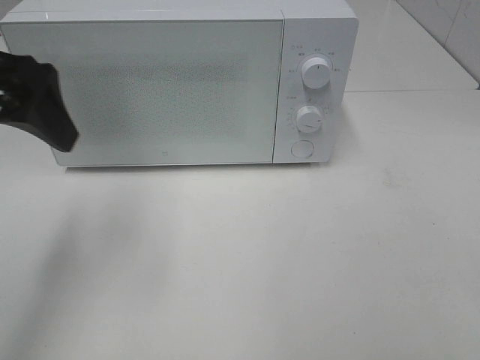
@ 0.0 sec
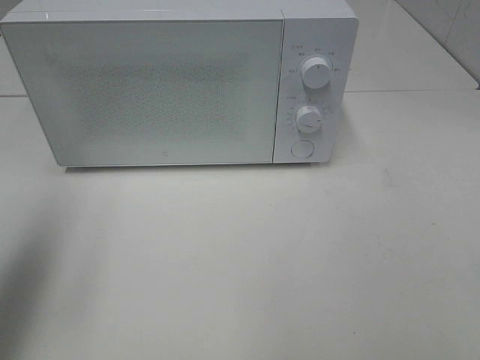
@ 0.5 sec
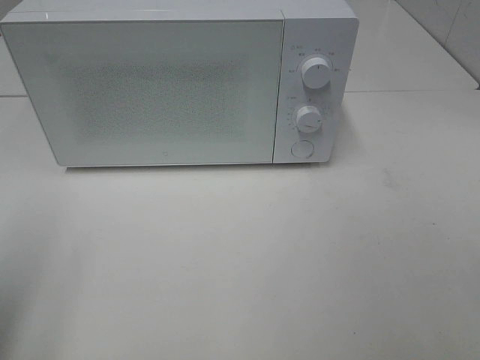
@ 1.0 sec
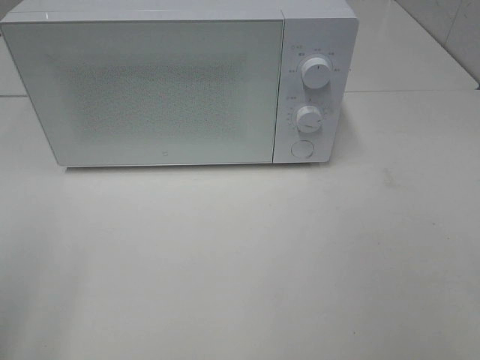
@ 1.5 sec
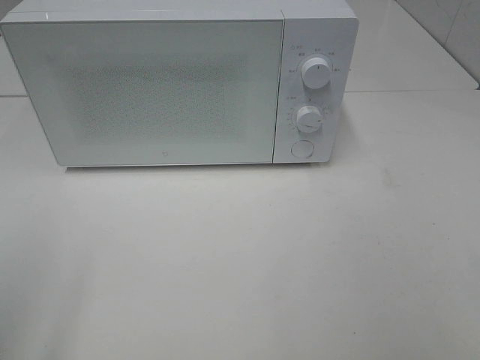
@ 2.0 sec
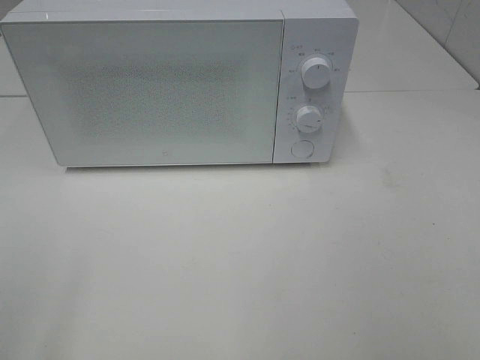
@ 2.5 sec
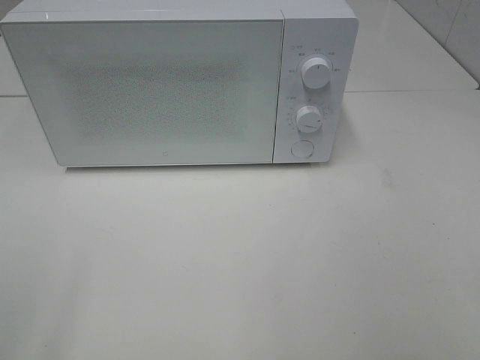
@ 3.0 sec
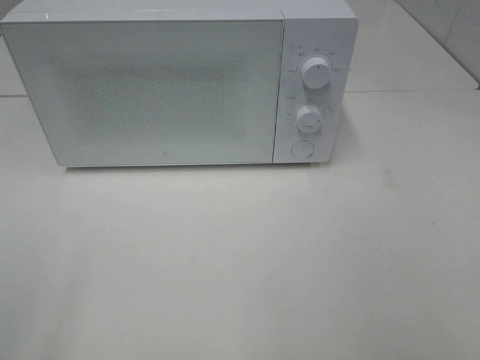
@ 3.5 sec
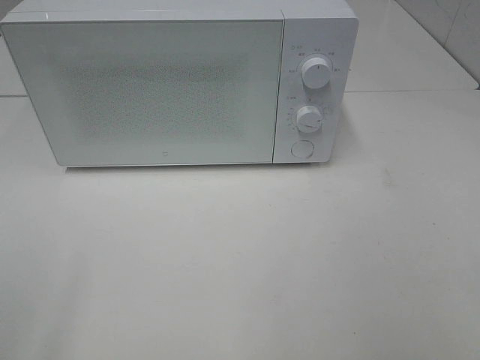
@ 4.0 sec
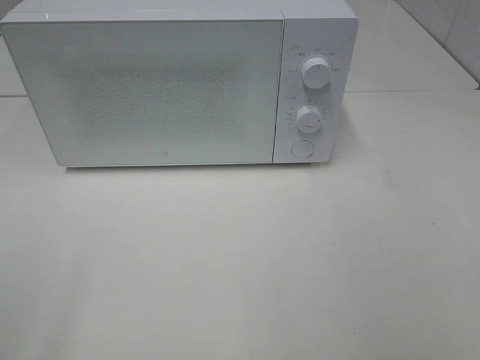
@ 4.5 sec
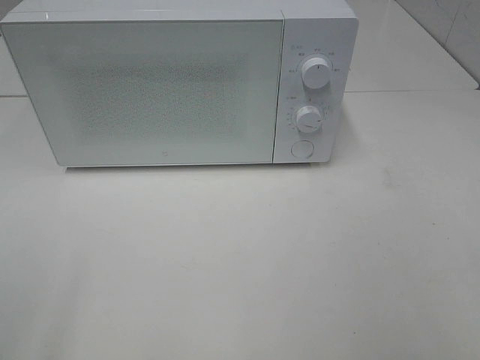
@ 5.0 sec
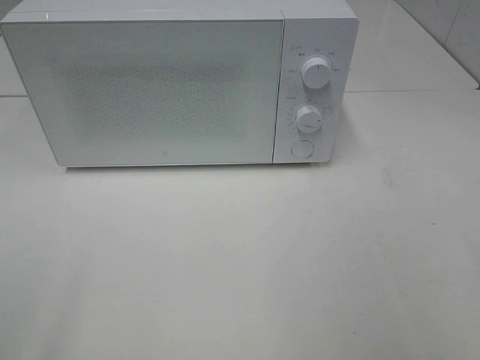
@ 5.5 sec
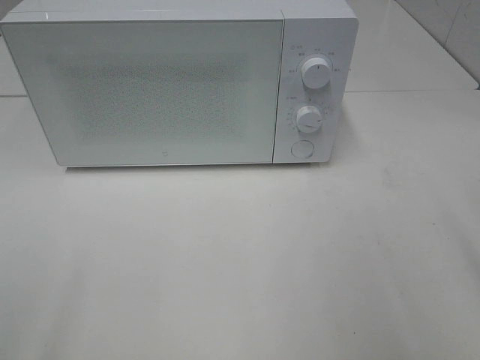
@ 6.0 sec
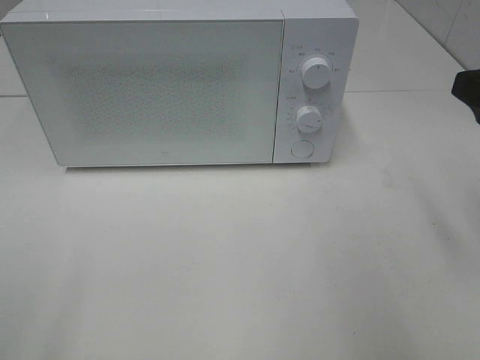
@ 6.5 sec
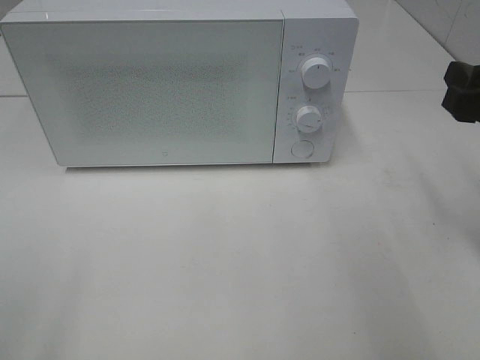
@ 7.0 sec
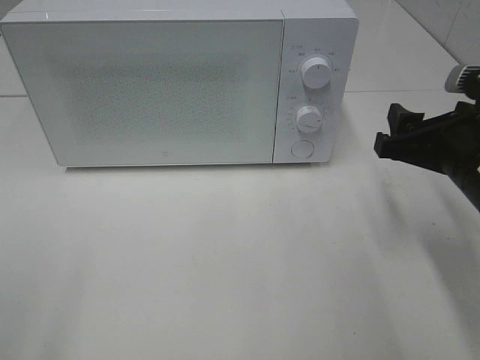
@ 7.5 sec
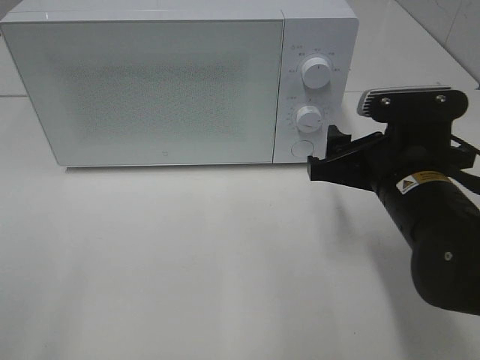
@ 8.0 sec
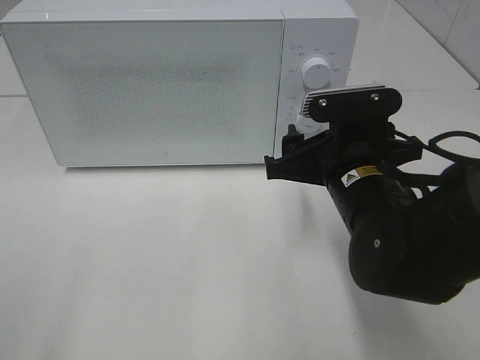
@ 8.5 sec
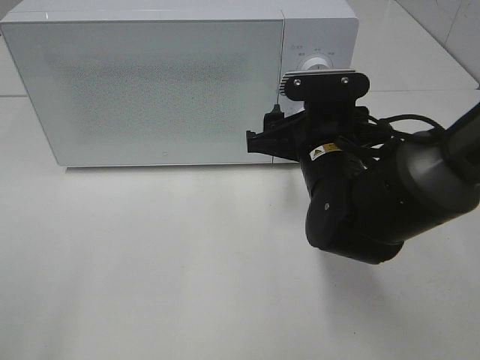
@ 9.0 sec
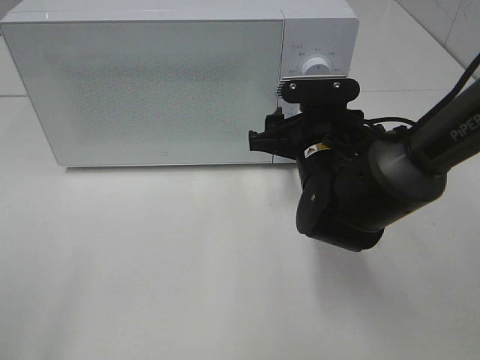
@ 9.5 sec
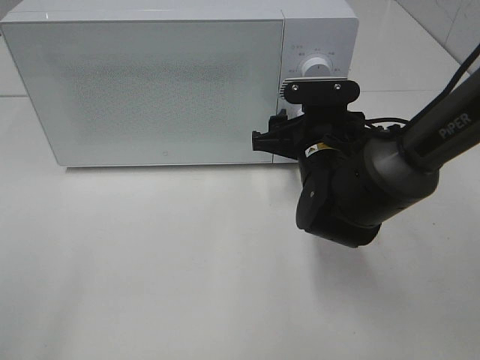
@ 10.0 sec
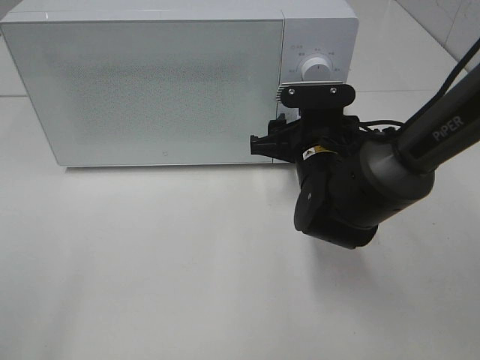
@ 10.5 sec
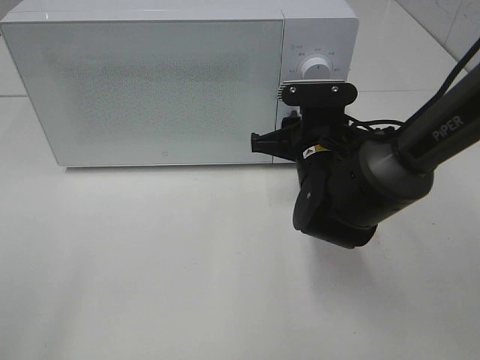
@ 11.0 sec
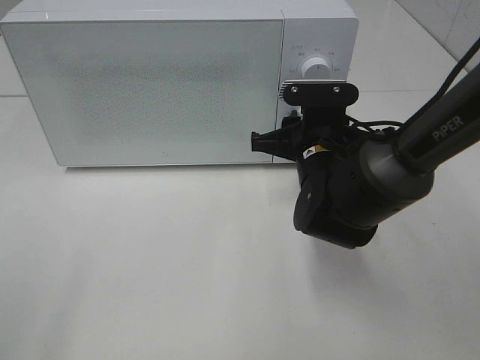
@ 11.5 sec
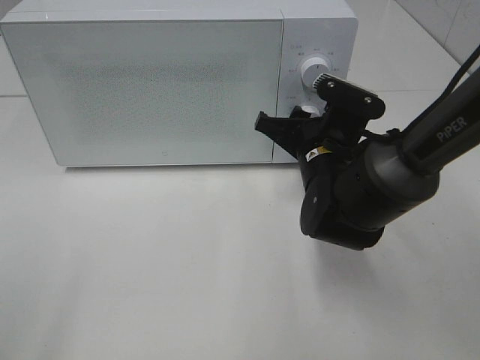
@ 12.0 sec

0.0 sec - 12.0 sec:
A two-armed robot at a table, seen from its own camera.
Task of the whole recording: Heat the burger.
0.0 sec - 2.0 sec: The left gripper travels backward and to the left by approximately 20 cm.
6.0 sec - 8.0 sec: The right gripper goes approximately 20 cm downward, to the left and forward.
8.0 sec - 10.0 sec: The right gripper is displaced forward and to the left by some 10 cm.
10.0 sec - 12.0 sec: The right gripper closes.

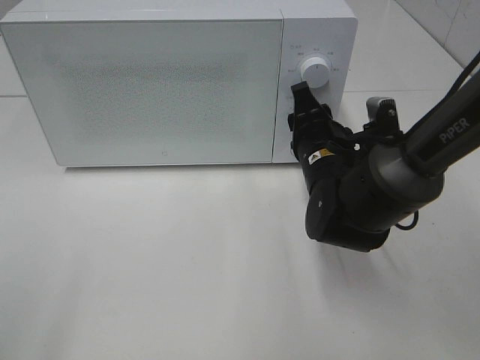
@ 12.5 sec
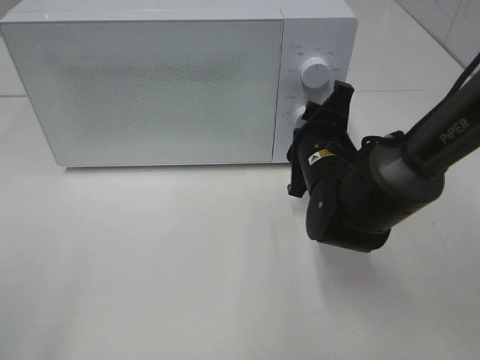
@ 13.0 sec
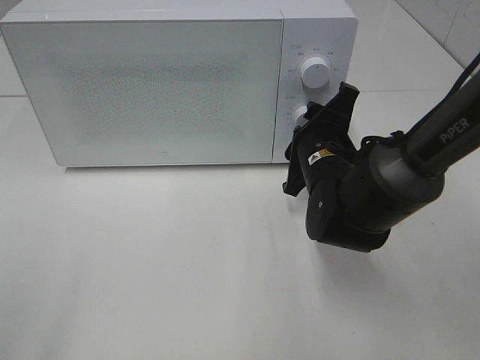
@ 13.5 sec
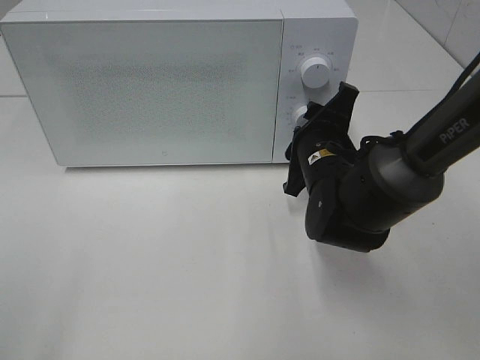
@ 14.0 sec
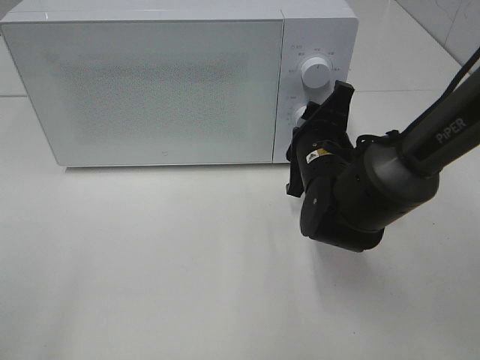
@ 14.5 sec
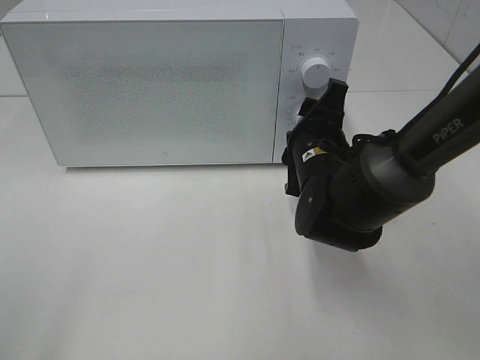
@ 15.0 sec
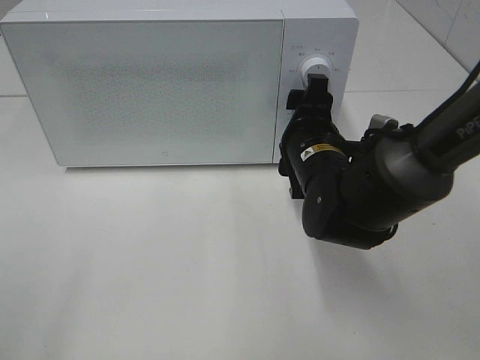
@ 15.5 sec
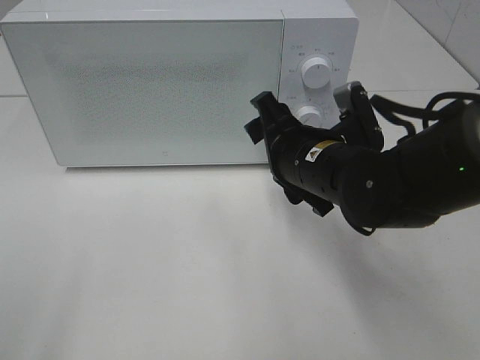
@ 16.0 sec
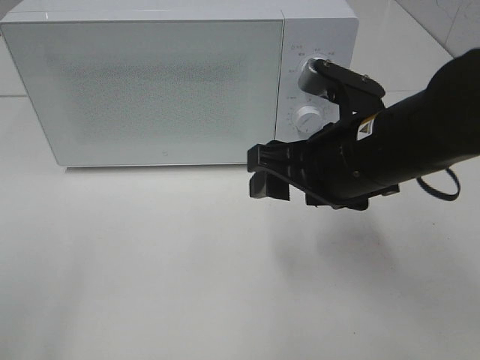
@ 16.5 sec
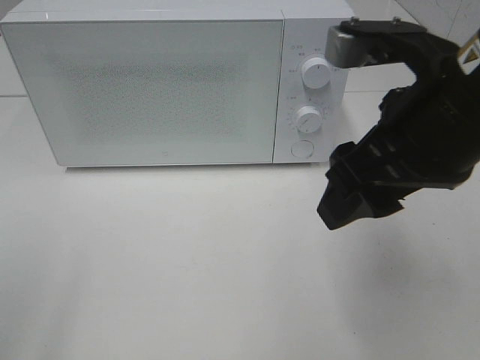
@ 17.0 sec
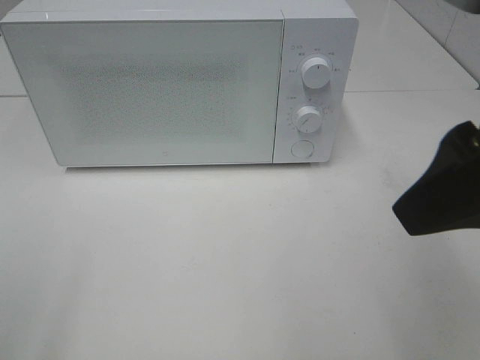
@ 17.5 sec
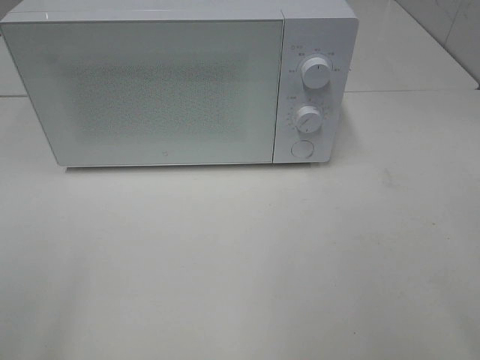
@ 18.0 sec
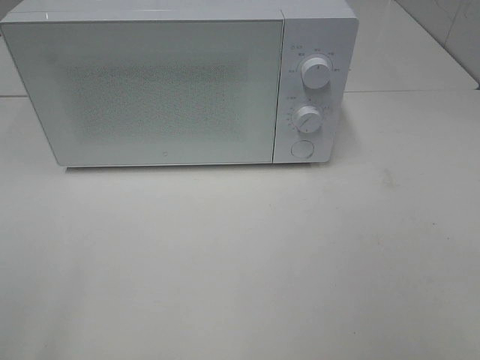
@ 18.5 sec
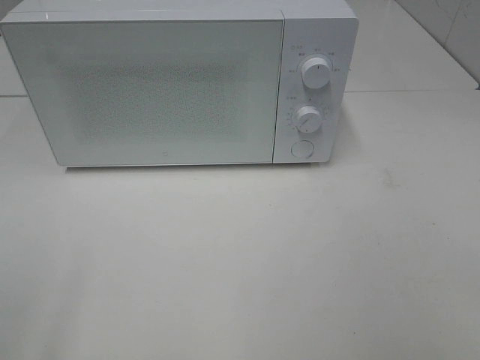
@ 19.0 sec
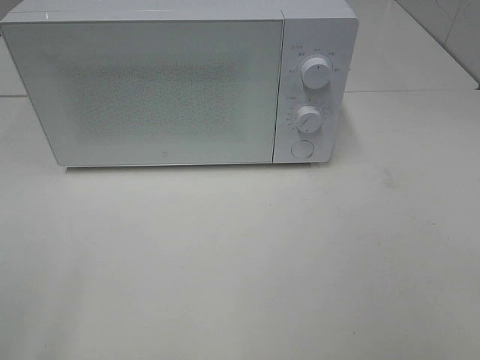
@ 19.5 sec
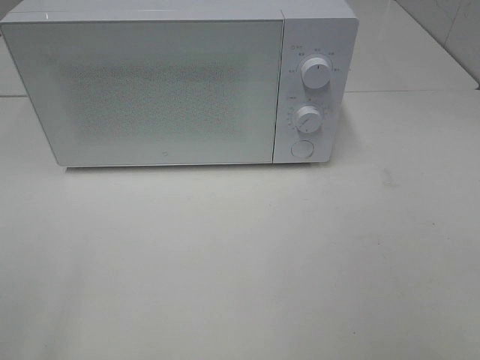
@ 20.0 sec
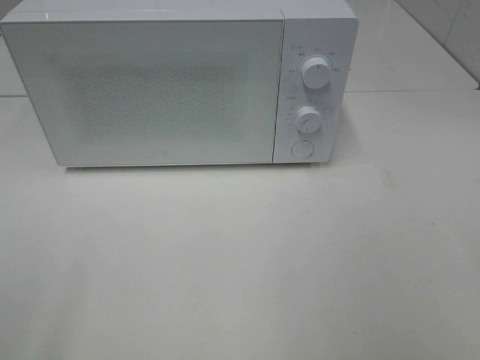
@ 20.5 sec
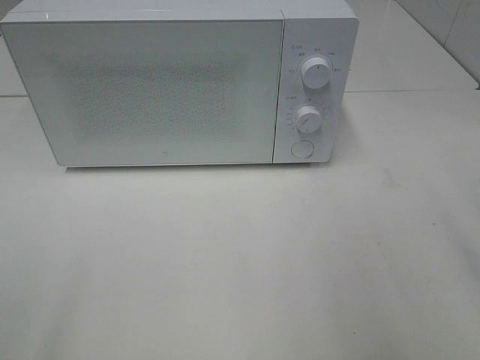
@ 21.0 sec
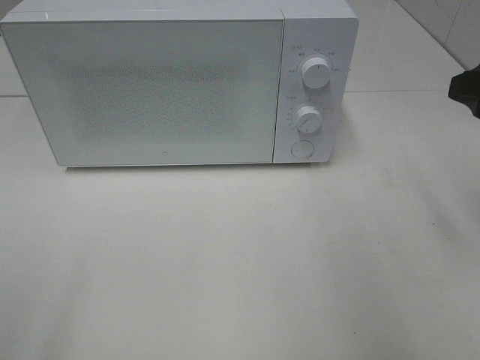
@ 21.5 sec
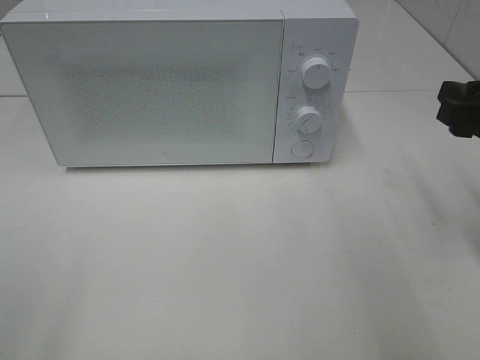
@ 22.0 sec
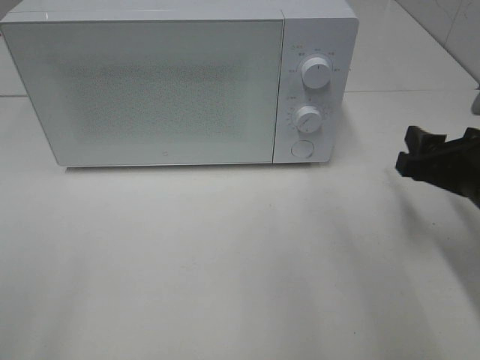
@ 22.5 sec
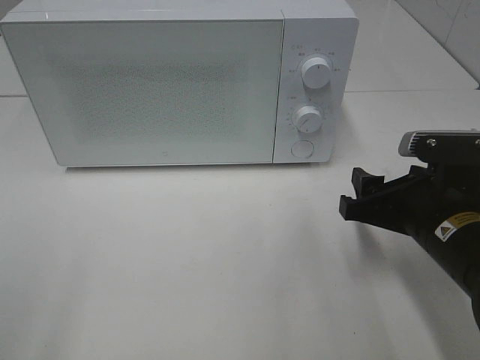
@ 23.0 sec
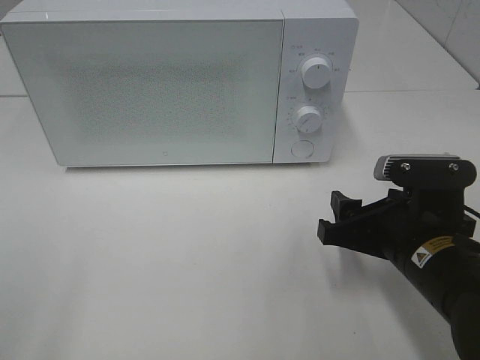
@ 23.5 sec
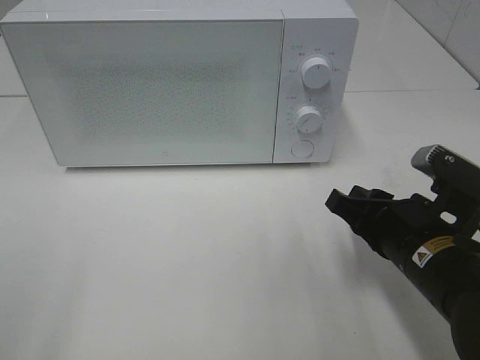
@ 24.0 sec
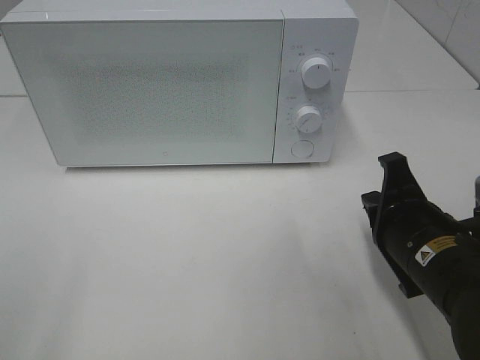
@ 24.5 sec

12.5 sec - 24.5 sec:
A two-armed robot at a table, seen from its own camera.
Task of the whole recording: Heat the burger.
Step, 12.5 sec - 15.0 sec: Right hand: twist timer button.
14.5 sec - 16.5 sec: The right gripper travels upward and backward by about 10 cm.
16.5 sec - 18.5 sec: The right gripper shifts about 30 cm backward, to the right and upward.
20.5 sec - 22.5 sec: The right gripper heads downward and forward, covering some 25 cm.
22.5 sec - 24.5 sec: The right gripper heads to the left, covering some 5 cm, and closes.

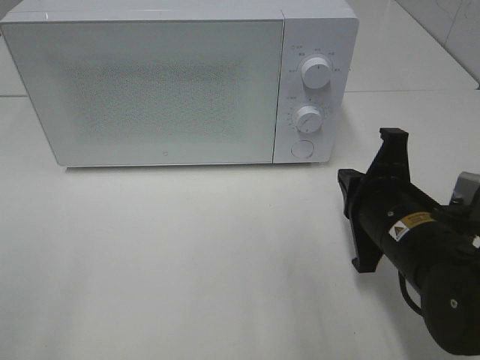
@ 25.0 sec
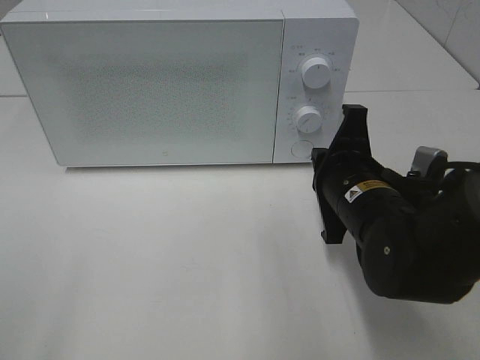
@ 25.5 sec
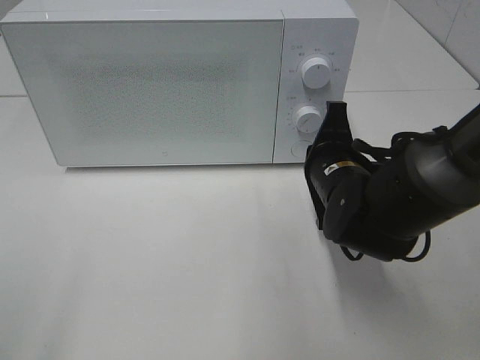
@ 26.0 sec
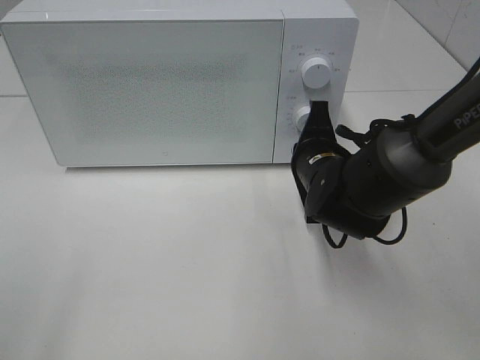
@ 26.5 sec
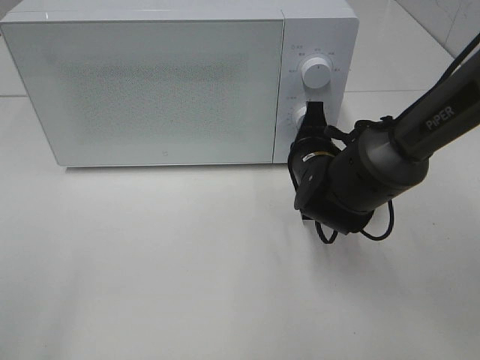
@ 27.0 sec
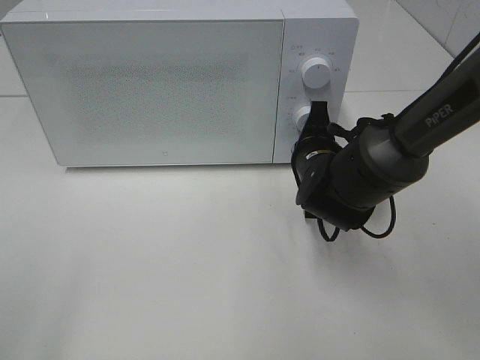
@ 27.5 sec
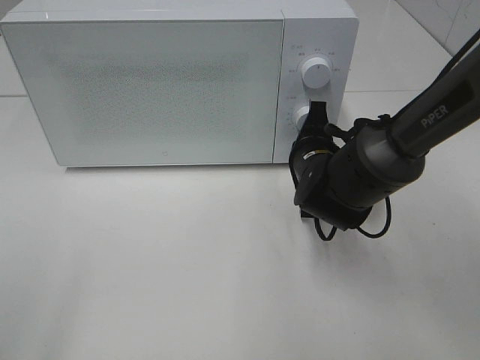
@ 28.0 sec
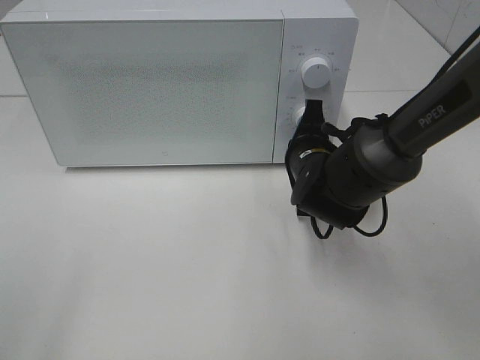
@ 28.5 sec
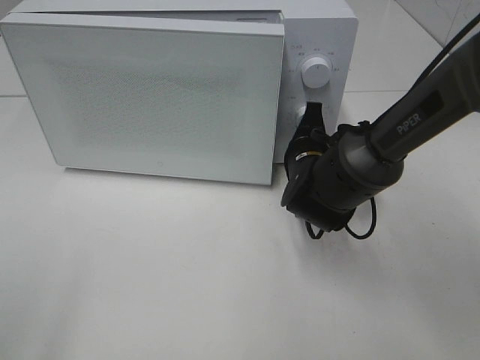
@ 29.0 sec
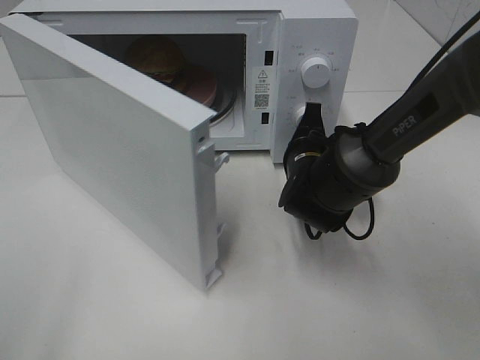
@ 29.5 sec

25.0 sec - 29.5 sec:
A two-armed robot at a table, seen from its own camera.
Task of the whole recording: Heat the burger.
25.0 sec - 27.0 sec: The right gripper heads forward, covering some 10 cm.
